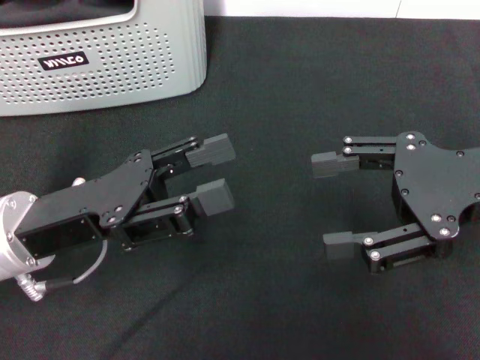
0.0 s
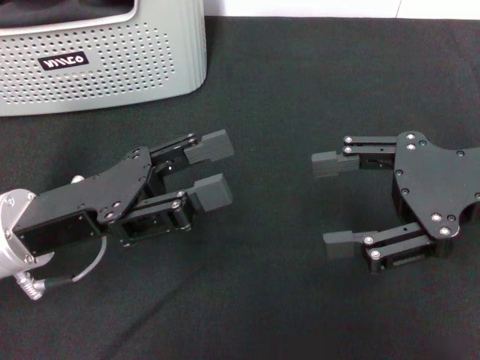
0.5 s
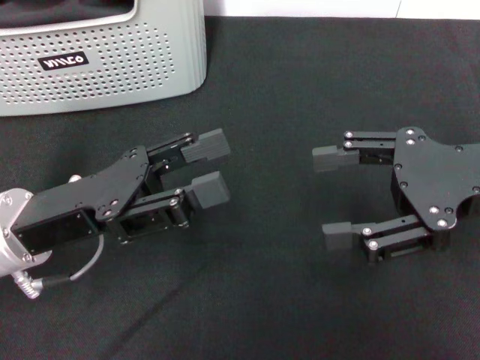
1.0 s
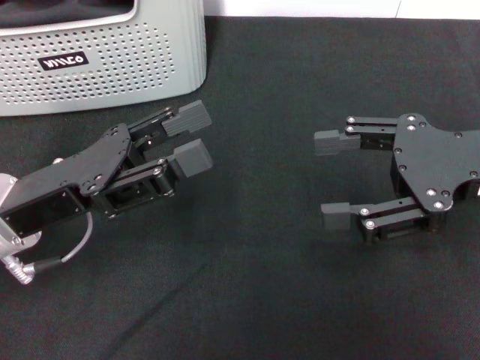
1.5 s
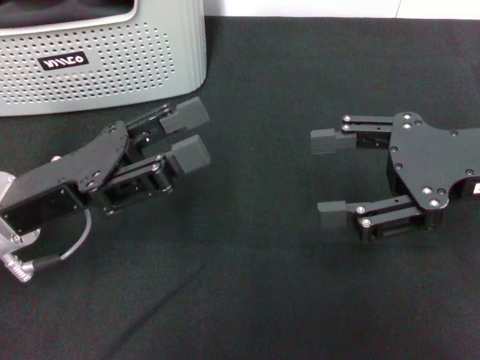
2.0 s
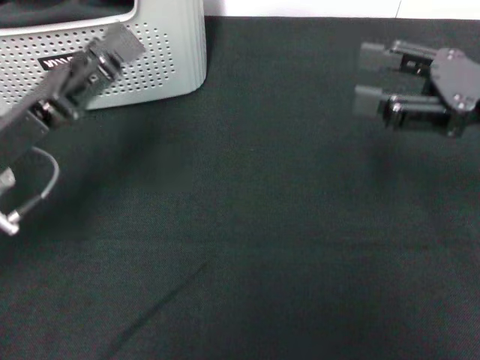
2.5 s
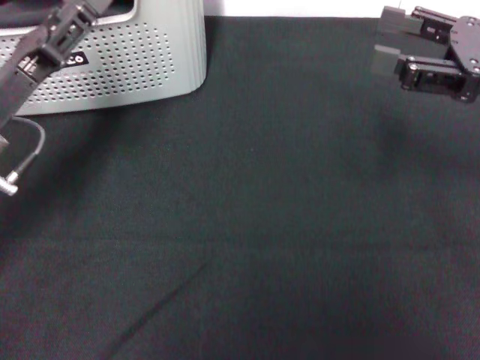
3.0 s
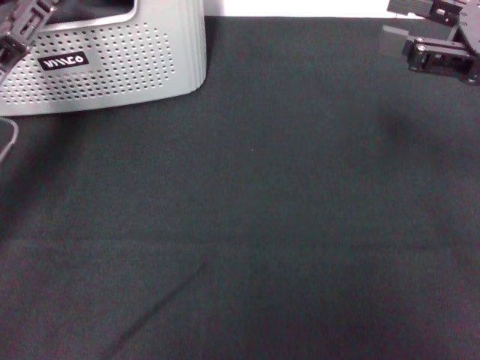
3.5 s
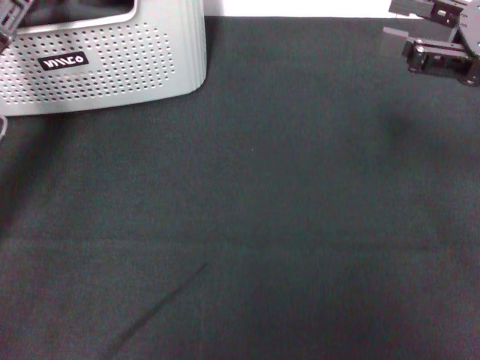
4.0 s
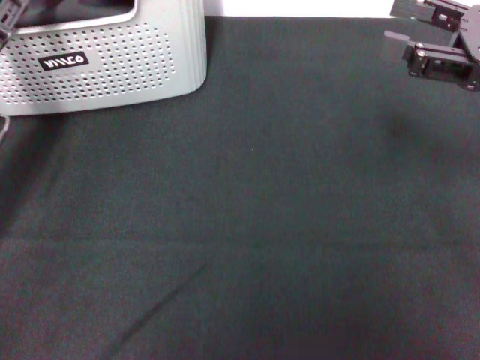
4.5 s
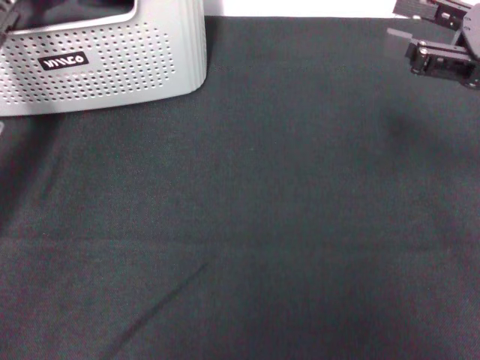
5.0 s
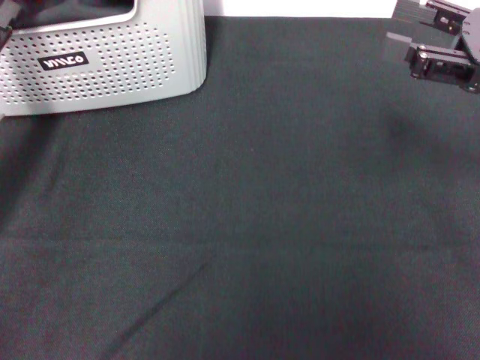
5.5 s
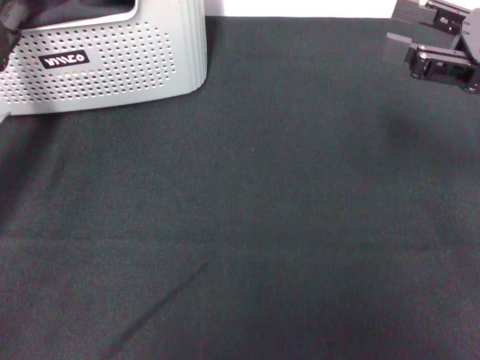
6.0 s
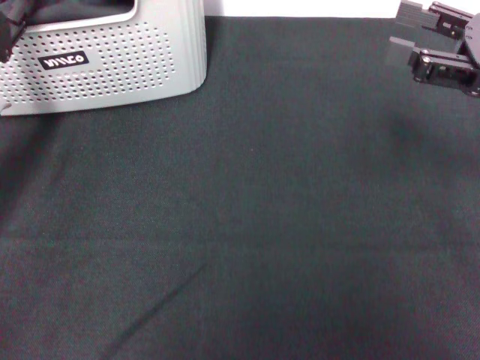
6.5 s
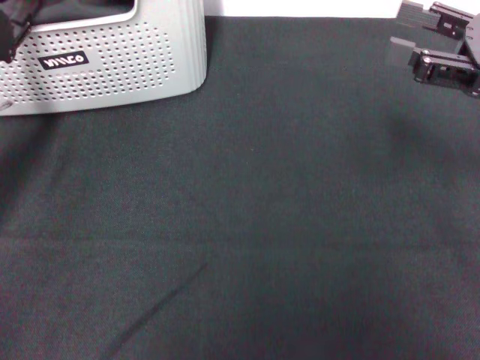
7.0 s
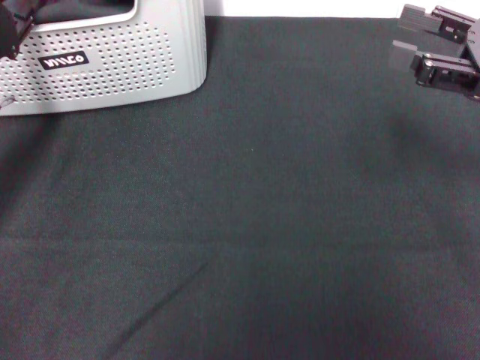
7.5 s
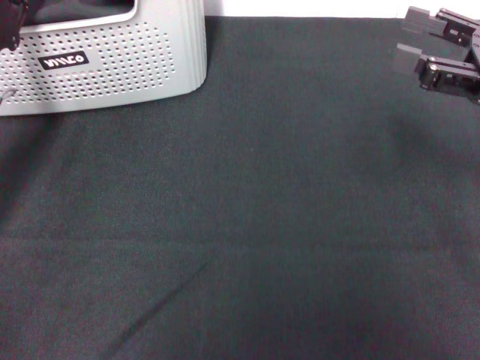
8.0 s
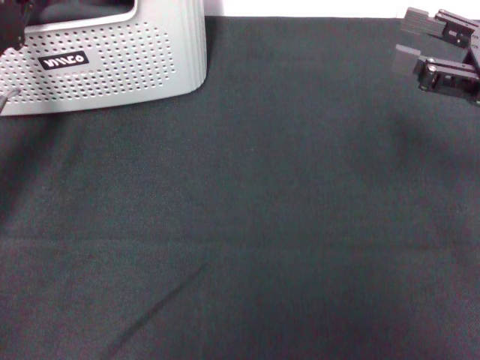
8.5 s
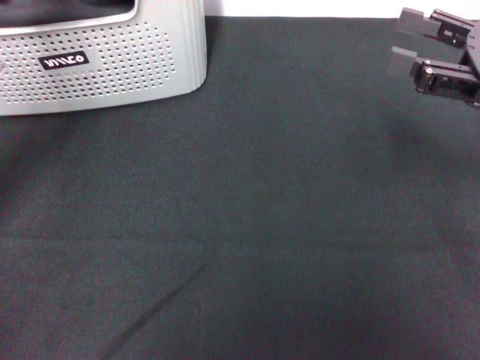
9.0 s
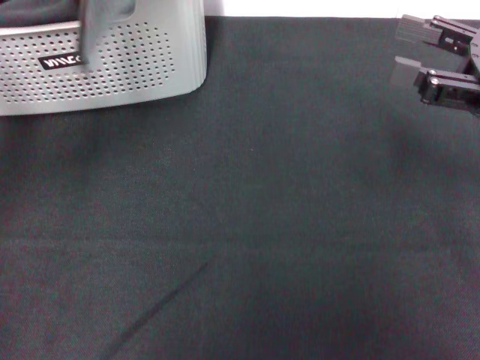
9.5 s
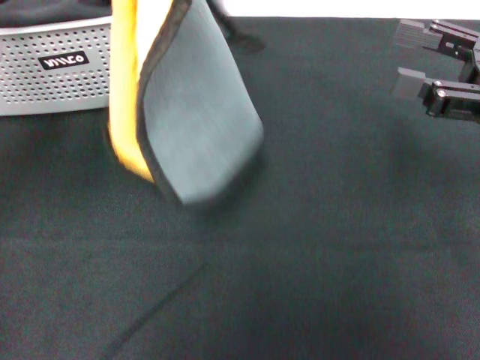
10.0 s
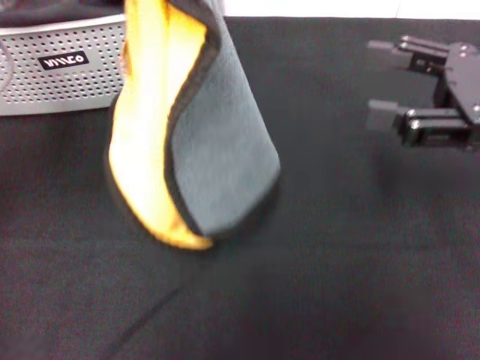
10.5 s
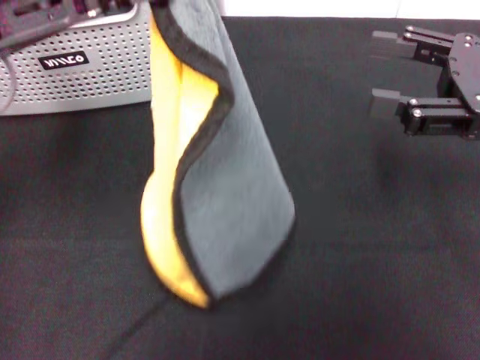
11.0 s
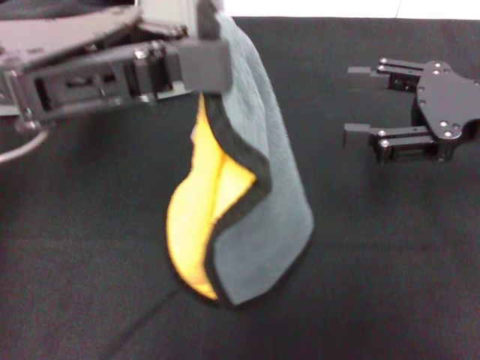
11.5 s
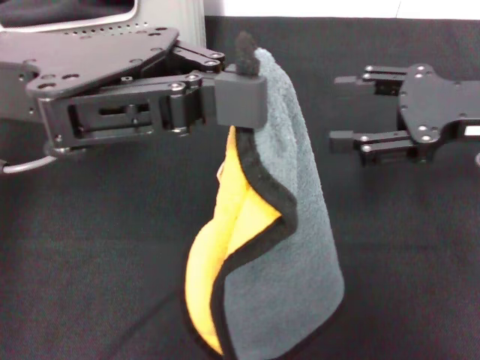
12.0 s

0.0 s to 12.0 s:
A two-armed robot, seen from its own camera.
Task of the whole recording: pick up the towel from the storage box and lay it flat on the black tablecloth.
Step, 0.0 to 8.5 s: Pick up a towel with the left gripper.
0.0 to 2.0 s: The grippers make only small movements.
2.0 to 4.0 s: The right gripper travels forward by some 5 cm; the left gripper moves to the left and forward, approximately 10 cm.
6.0 to 8.0 s: The left gripper closes up.
8.0 to 10.0 s: The left gripper moves upward, about 15 cm.
10.0 to 12.0 s: The left gripper moves to the right, approximately 5 cm.

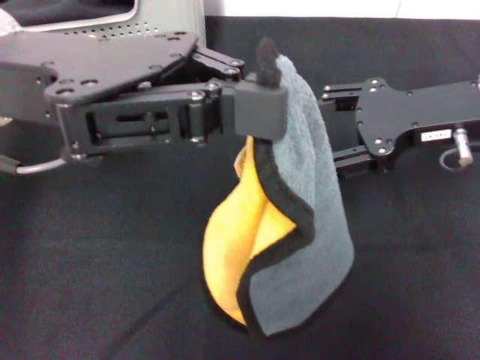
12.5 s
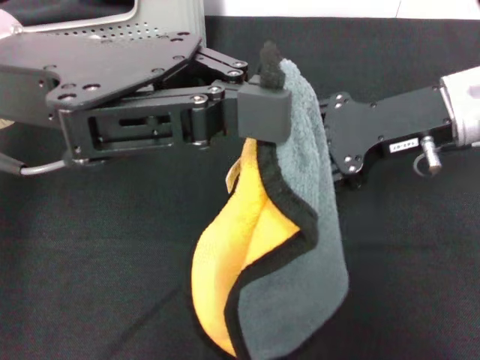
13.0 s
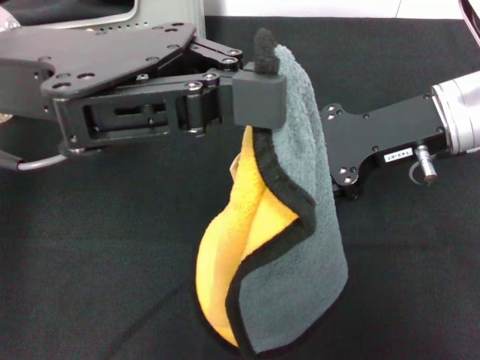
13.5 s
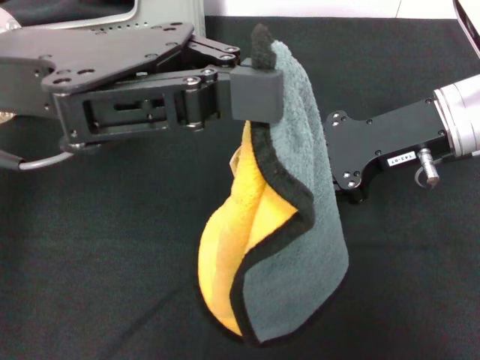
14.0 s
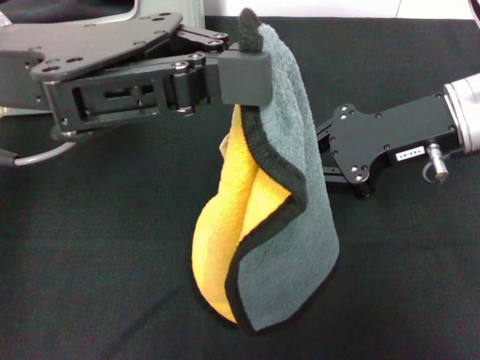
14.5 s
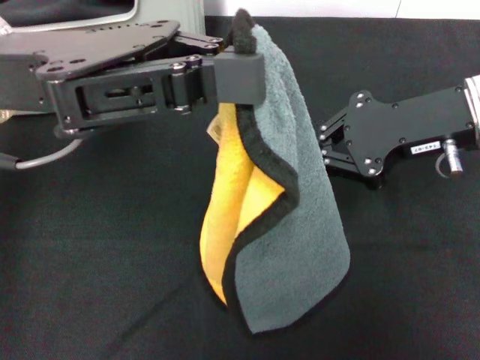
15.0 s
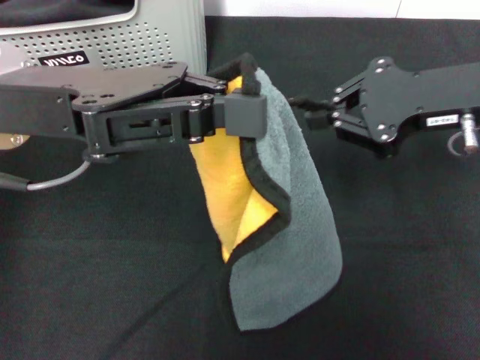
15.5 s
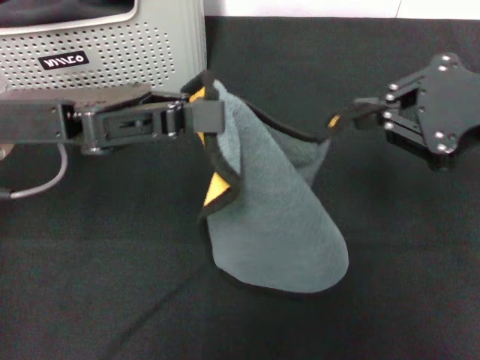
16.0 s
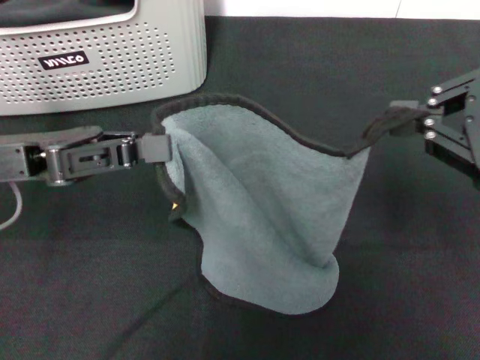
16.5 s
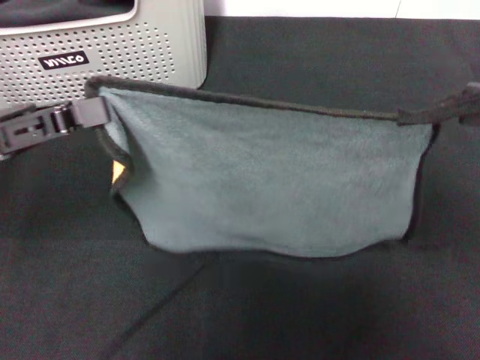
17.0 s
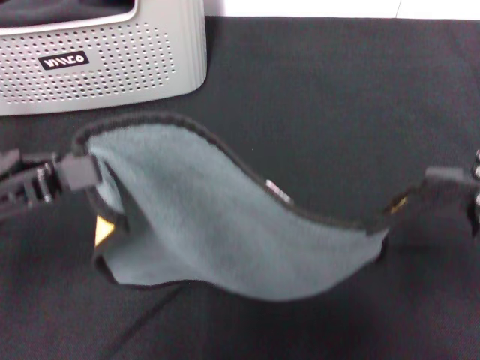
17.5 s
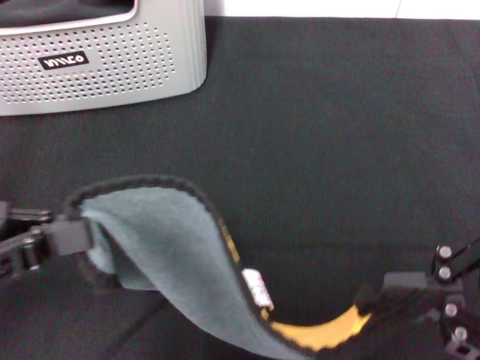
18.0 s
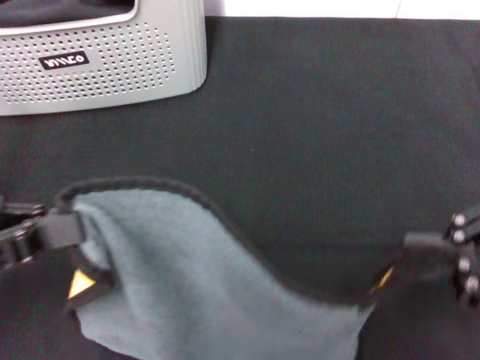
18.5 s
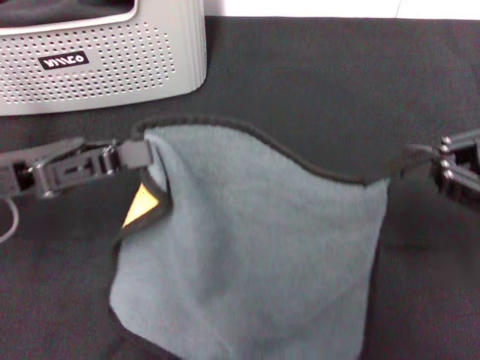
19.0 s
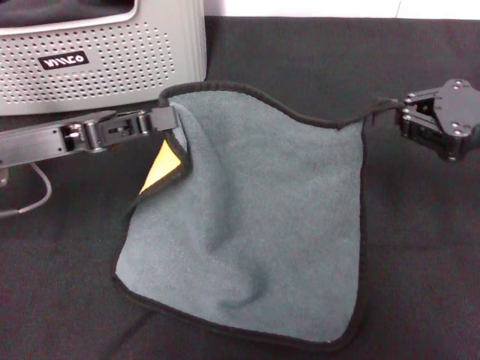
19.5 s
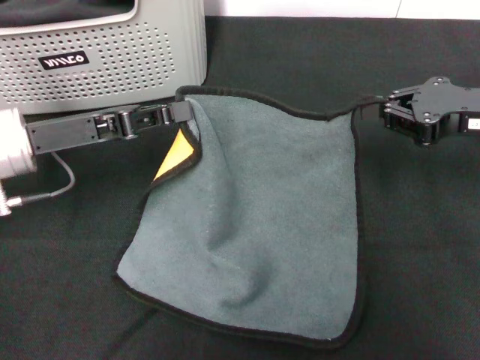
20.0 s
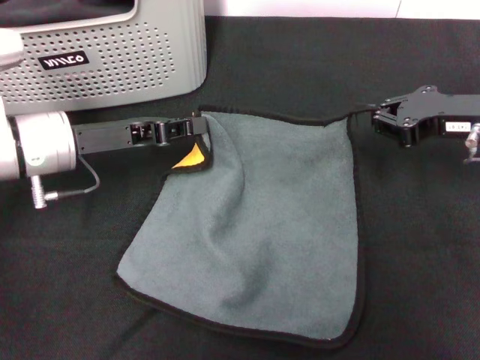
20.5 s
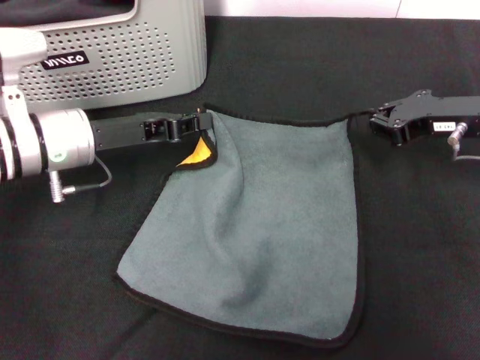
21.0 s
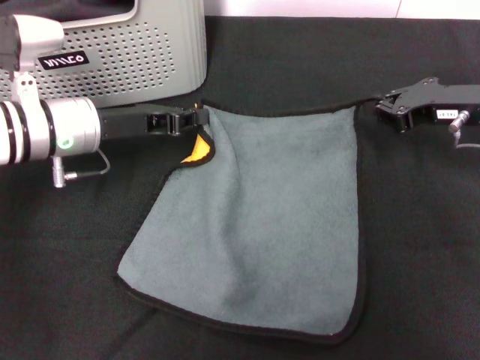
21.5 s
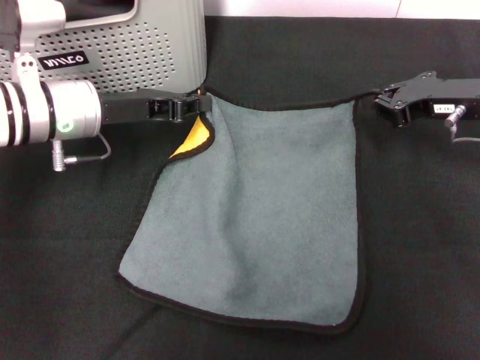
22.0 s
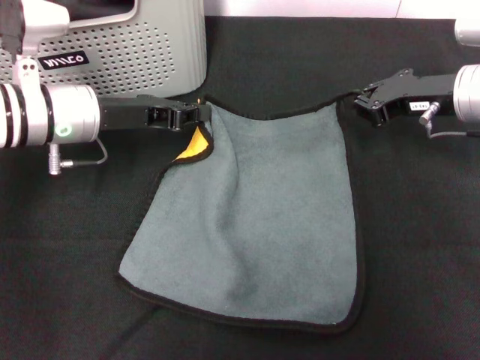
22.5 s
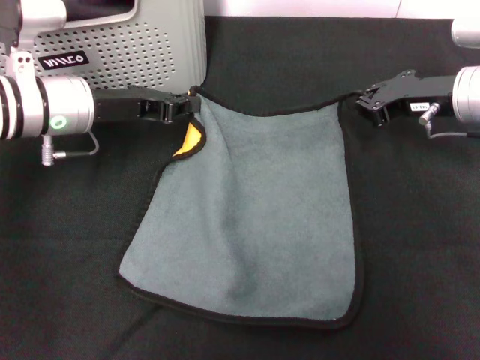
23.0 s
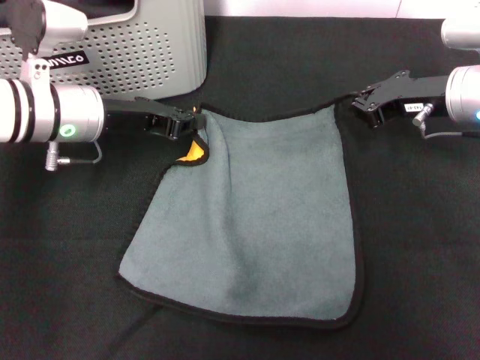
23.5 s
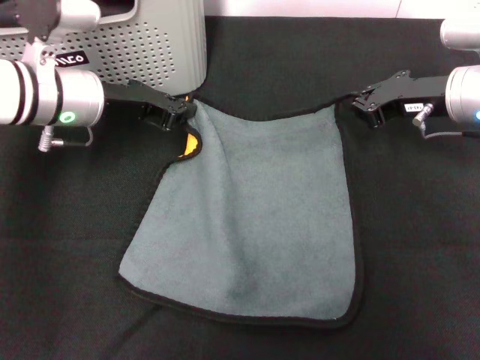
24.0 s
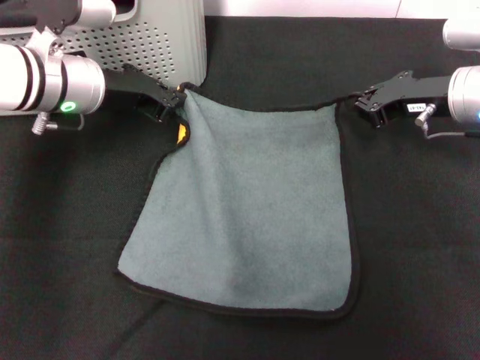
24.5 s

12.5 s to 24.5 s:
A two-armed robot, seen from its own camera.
Task of the whole recording: pick up the towel from the storage box and lay it flat on the black tablecloth.
Step, 12.5 to 15.0 s: Spread the towel flat with the left gripper.
12.5 to 14.5 s: The right gripper closes up.
14.5 to 16.5 s: The right gripper travels backward, upward and to the right by about 15 cm; the left gripper moves downward and to the left, some 10 cm.
16.5 to 18.5 s: The two grippers go some 10 cm backward.
18.5 to 20.5 s: The right gripper heads forward and downward, covering some 20 cm. The left gripper shifts approximately 20 cm forward, downward and to the right.
20.5 to 22.5 s: The right gripper ends up about 5 cm from where it was.

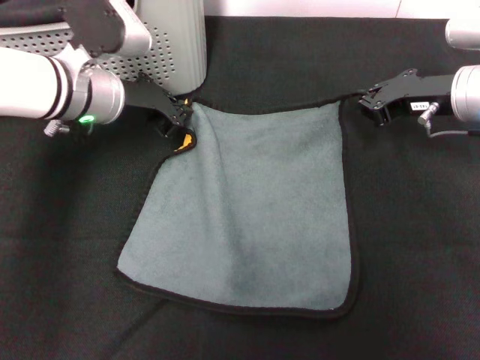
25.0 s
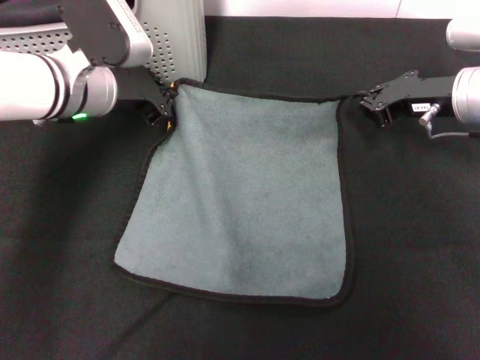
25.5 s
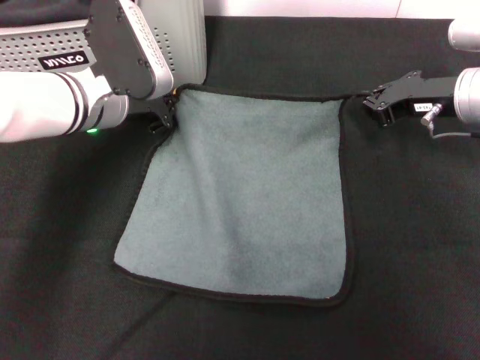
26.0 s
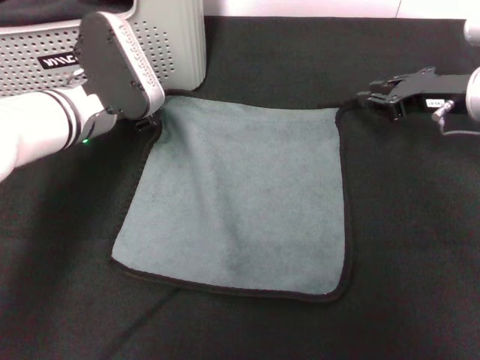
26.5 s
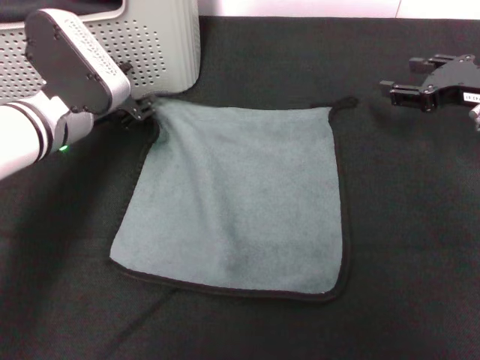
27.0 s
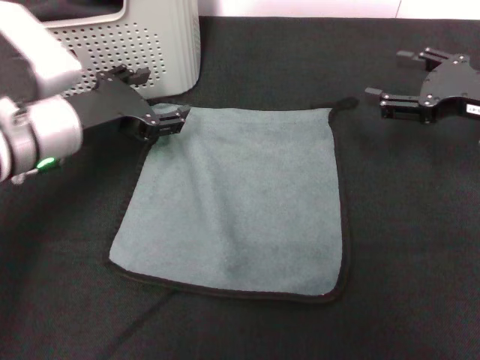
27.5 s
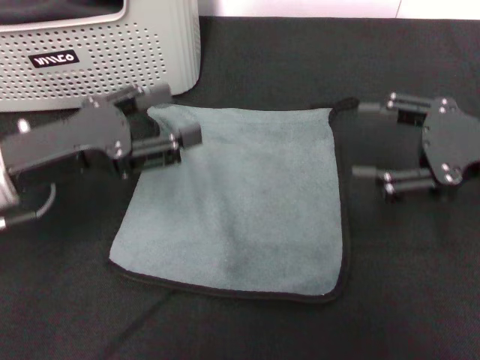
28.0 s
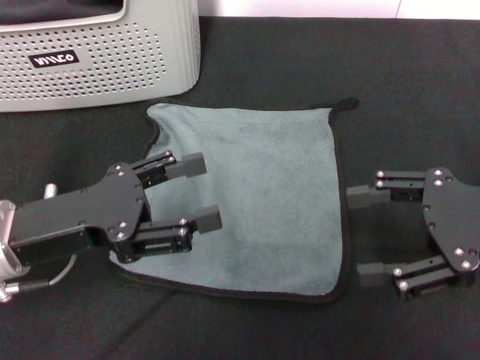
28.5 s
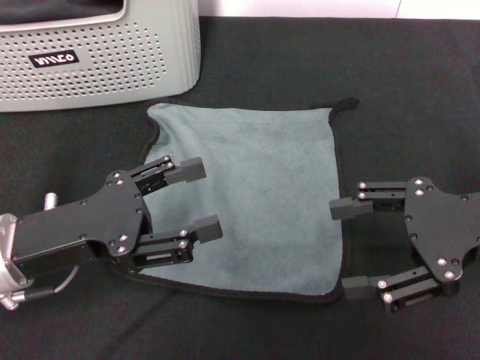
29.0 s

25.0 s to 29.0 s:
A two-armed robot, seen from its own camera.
Task of the whole recording: pick up the towel from the storage box and lay it flat on the black tablecloth.
25.0 to 27.0 s: The left gripper opens. The right gripper ends up some 5 cm from where it was, and opens.
27.0 to 29.0 s: The two grippers go roughly 15 cm backward. The left gripper opens its fingers.
